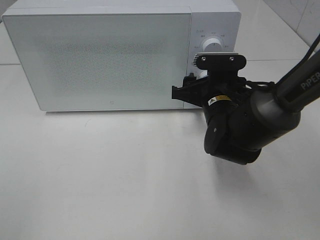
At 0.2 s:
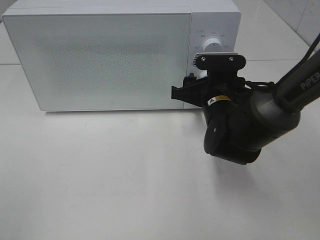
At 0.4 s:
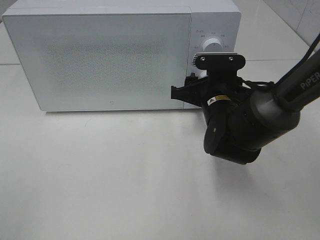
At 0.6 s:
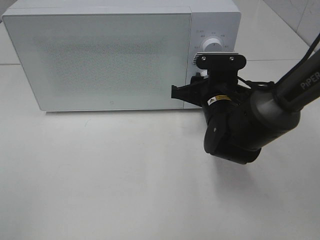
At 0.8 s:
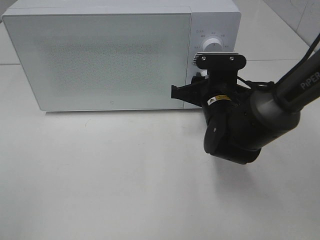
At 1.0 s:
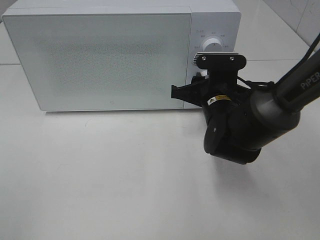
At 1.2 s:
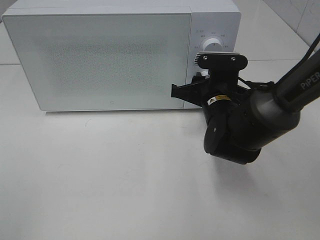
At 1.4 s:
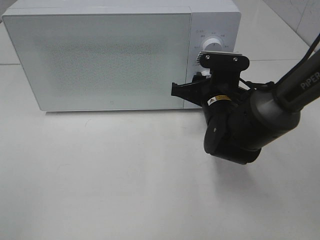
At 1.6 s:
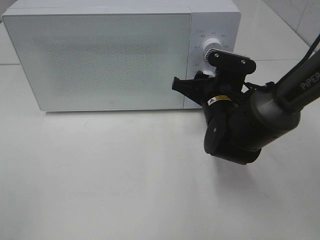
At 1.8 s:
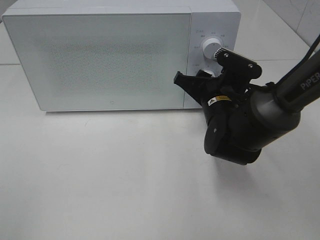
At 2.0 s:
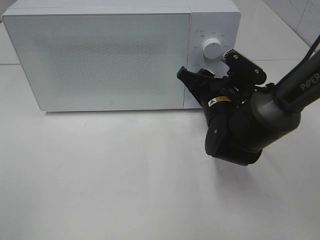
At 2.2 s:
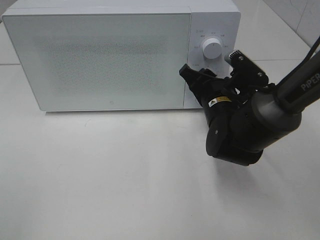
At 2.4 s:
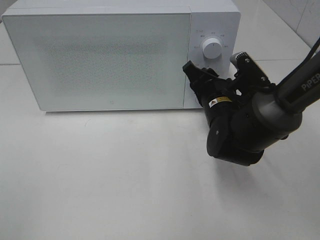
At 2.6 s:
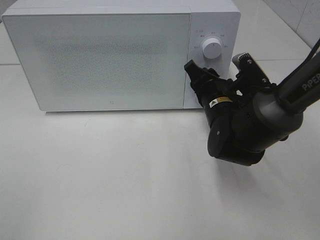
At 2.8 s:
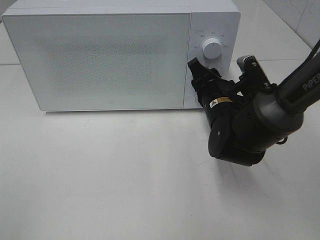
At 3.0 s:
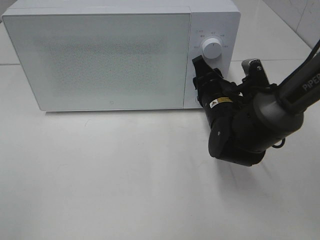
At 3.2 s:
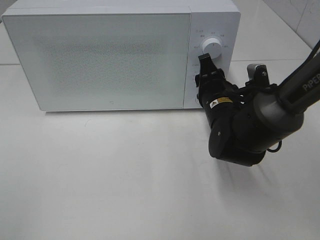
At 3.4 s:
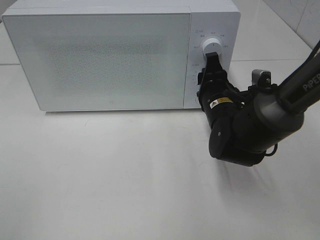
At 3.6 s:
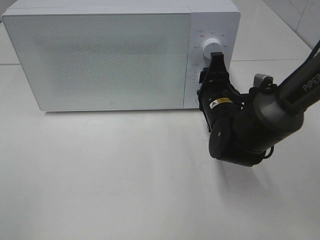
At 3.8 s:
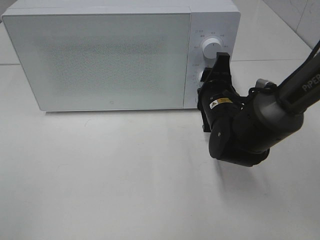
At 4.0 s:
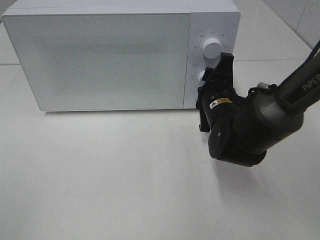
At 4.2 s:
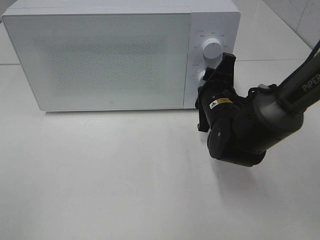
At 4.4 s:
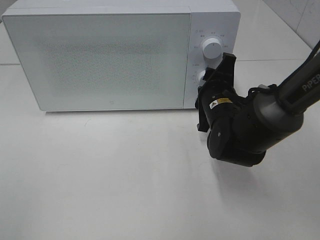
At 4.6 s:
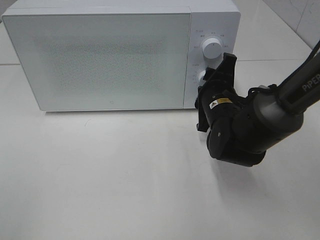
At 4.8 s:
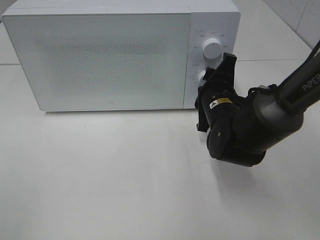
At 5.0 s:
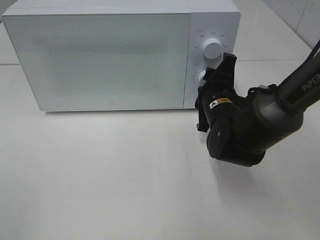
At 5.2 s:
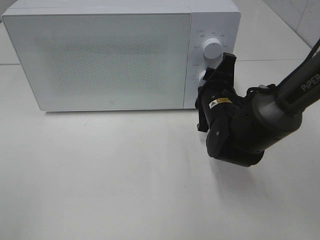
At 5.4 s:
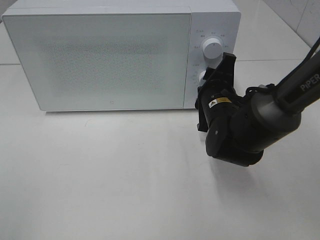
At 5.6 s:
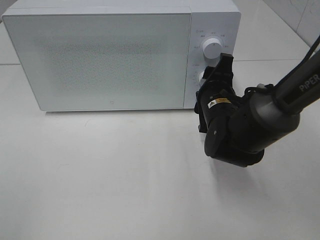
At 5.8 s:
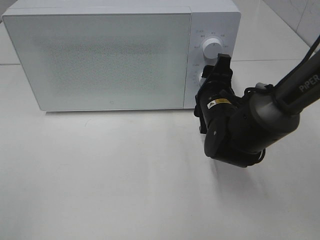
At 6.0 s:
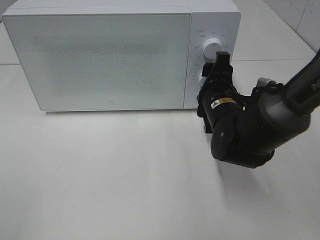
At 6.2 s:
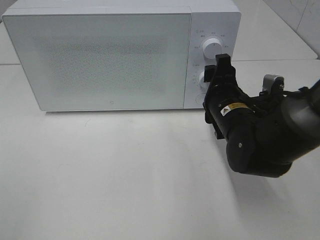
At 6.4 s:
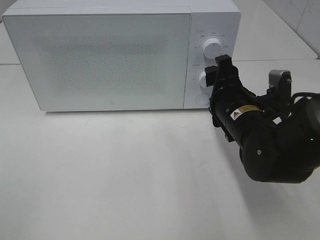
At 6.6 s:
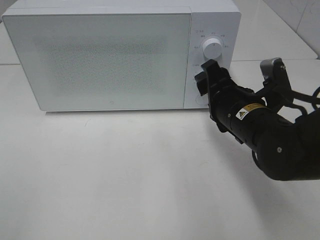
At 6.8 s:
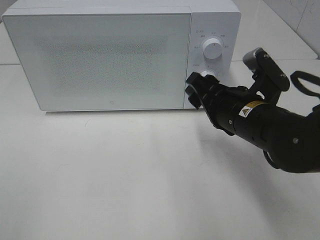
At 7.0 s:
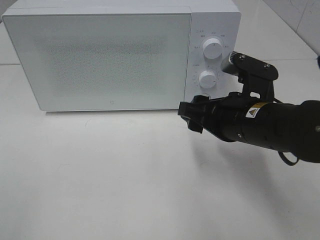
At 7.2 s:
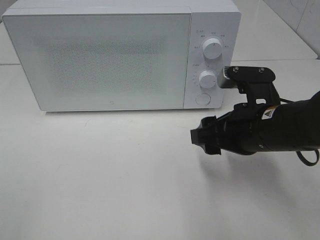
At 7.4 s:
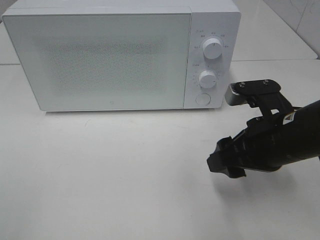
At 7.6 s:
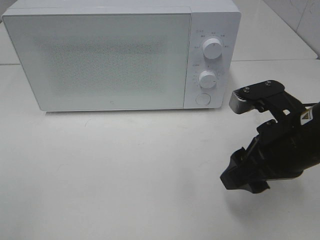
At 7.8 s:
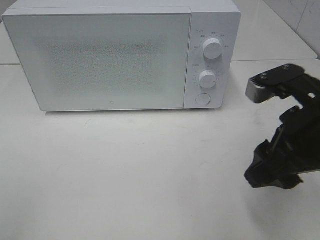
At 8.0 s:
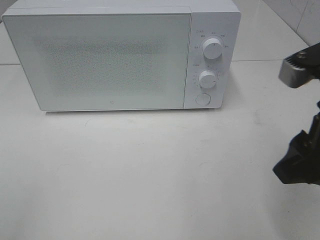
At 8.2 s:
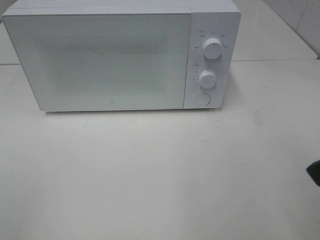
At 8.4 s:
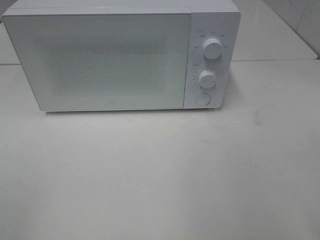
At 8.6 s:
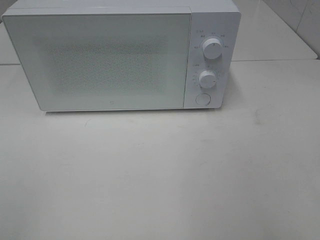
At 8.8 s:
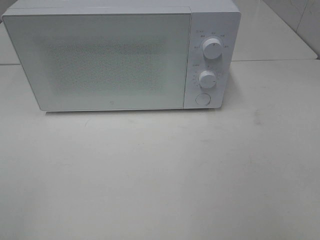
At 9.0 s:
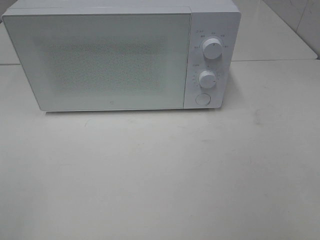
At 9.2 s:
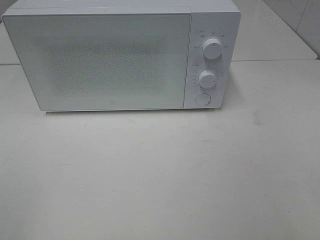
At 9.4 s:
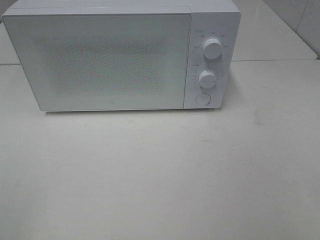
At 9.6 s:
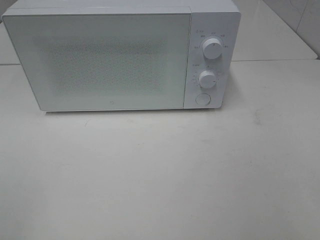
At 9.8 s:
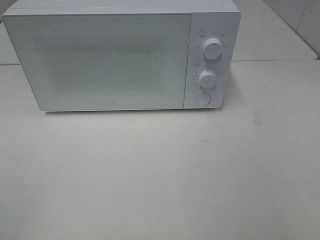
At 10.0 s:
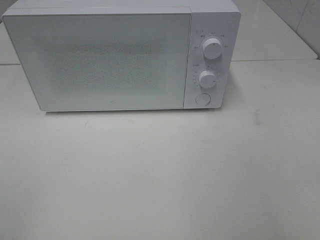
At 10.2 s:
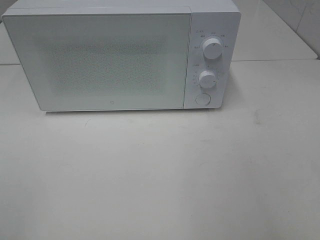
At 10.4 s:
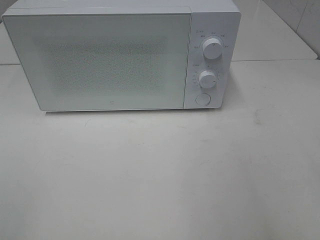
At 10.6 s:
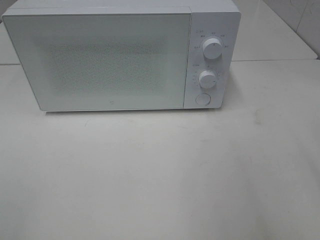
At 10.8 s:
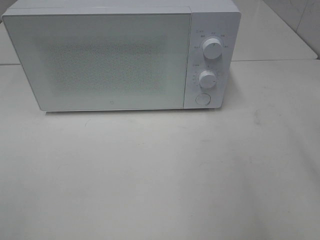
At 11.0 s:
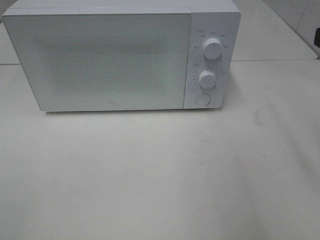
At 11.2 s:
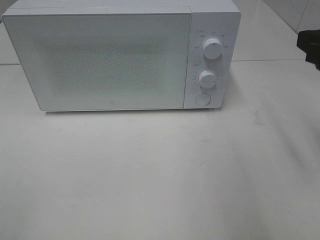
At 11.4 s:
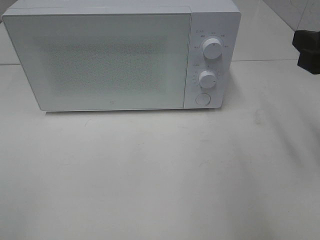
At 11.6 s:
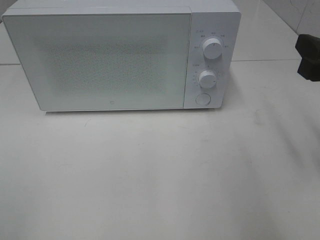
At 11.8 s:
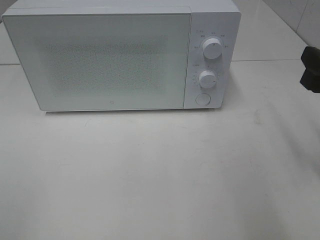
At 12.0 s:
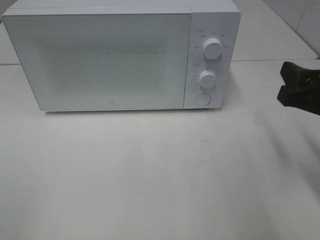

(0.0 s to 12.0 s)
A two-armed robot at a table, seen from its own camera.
Task of the whole recording: Heat the burger.
Step, 0.0 s - 5.8 s: Right hand: twist timer button.
0.0 s - 1.6 s: The grippers stay close to where they were, moving slightly.
4.4 s - 6.0 s: The grippers stay close to where they were, moving slightly.
6.0 s - 7.6 s: The right gripper shifts roughly 15 cm backward, upward and to the right.
7.6 s - 9.0 s: The right gripper goes about 25 cm backward, to the right and upward.
10.4 s - 12.0 s: The right gripper moves forward and downward, approximately 15 cm.

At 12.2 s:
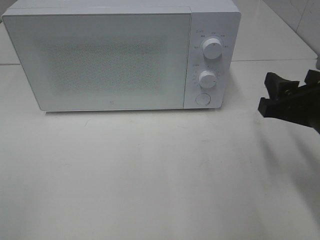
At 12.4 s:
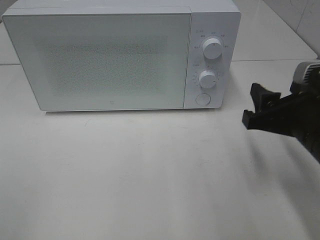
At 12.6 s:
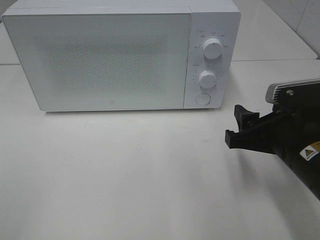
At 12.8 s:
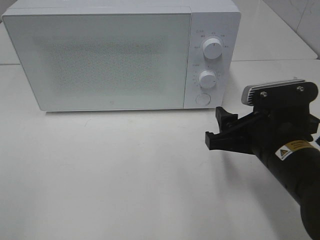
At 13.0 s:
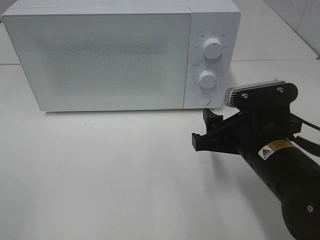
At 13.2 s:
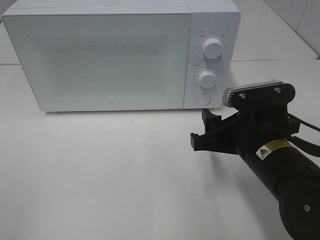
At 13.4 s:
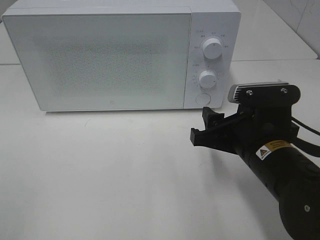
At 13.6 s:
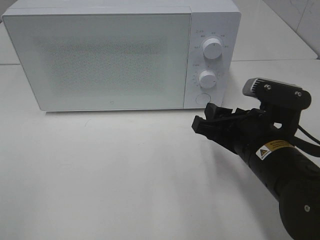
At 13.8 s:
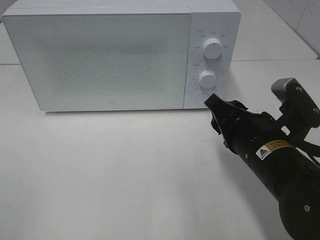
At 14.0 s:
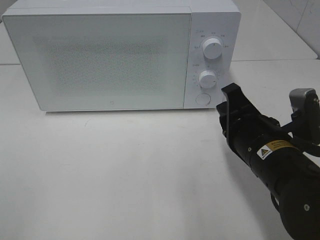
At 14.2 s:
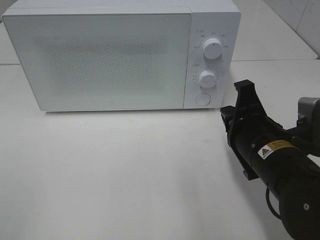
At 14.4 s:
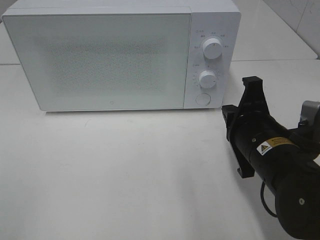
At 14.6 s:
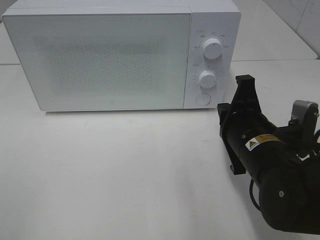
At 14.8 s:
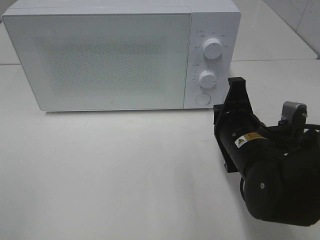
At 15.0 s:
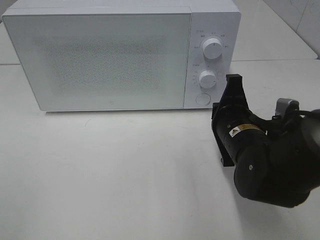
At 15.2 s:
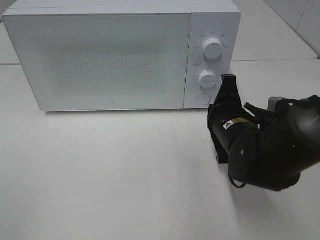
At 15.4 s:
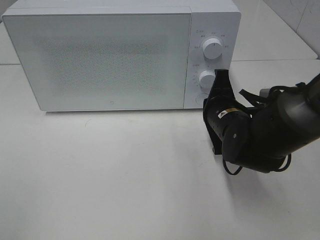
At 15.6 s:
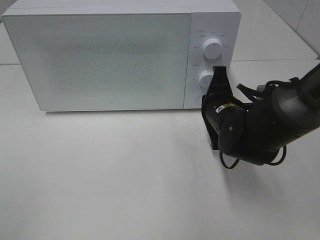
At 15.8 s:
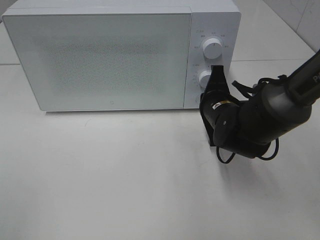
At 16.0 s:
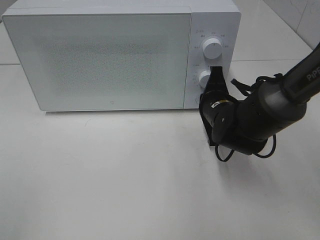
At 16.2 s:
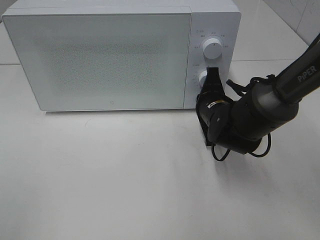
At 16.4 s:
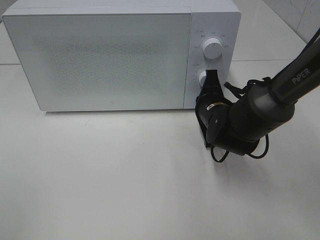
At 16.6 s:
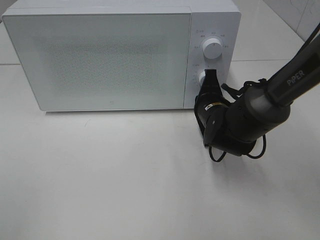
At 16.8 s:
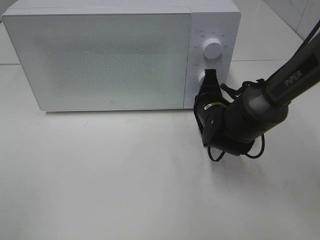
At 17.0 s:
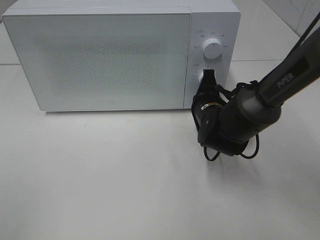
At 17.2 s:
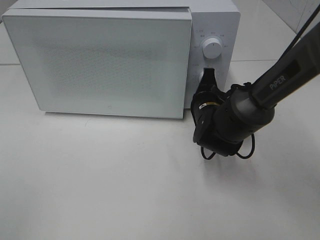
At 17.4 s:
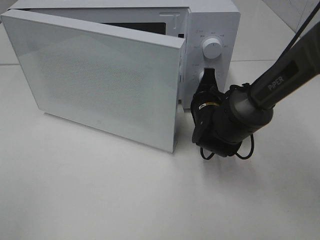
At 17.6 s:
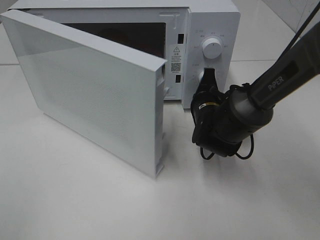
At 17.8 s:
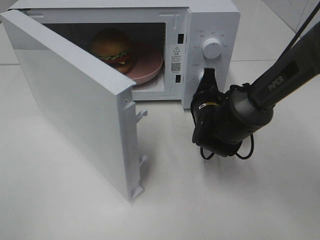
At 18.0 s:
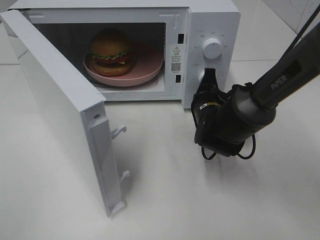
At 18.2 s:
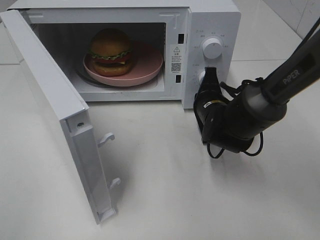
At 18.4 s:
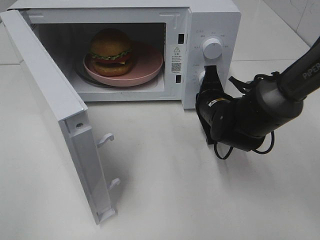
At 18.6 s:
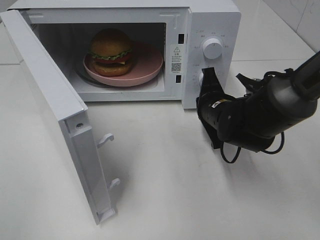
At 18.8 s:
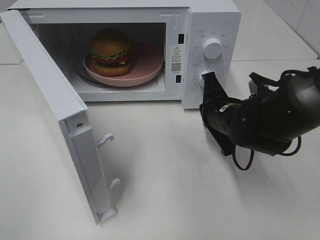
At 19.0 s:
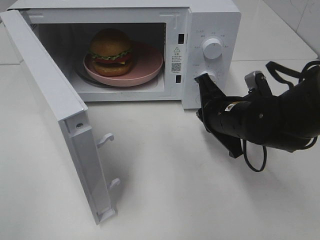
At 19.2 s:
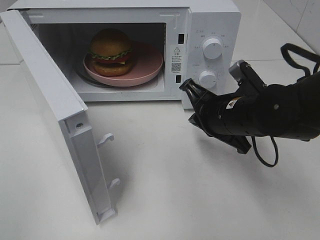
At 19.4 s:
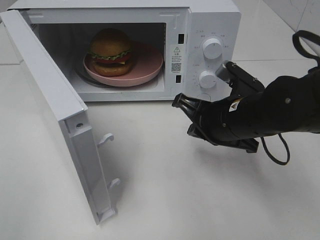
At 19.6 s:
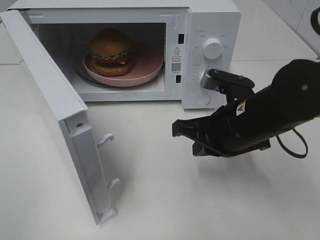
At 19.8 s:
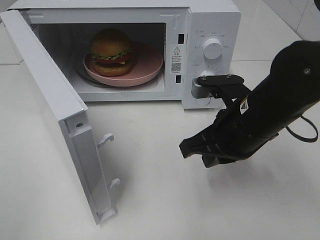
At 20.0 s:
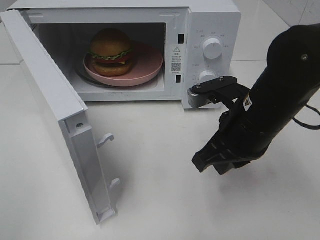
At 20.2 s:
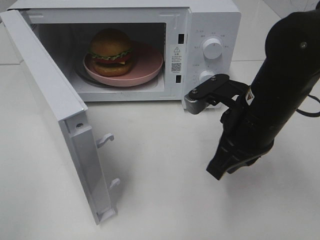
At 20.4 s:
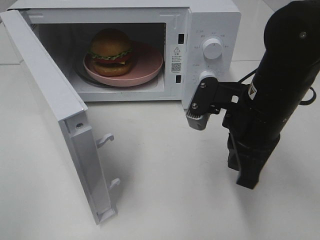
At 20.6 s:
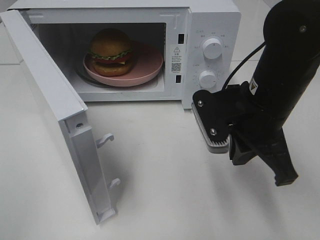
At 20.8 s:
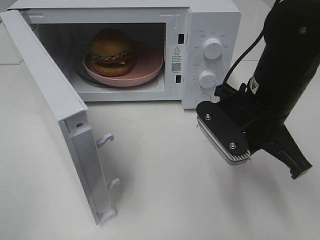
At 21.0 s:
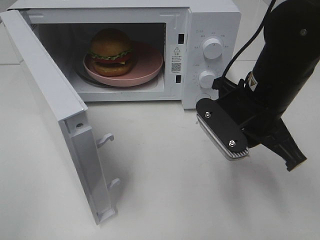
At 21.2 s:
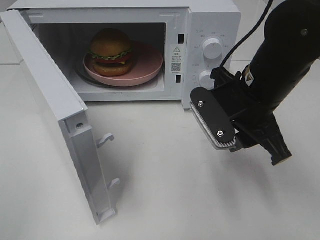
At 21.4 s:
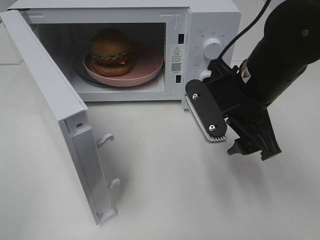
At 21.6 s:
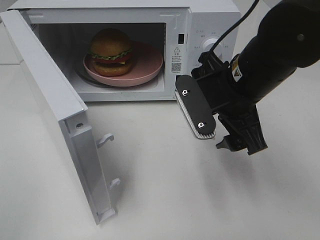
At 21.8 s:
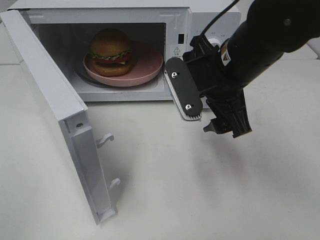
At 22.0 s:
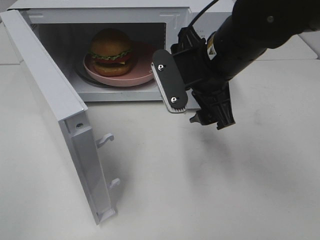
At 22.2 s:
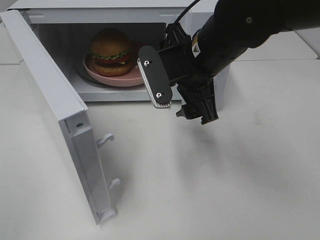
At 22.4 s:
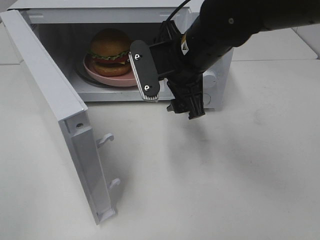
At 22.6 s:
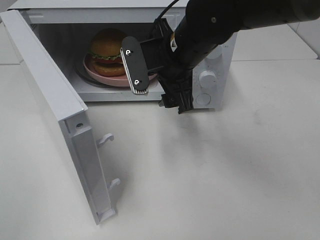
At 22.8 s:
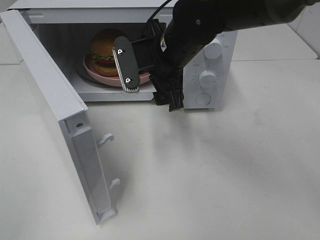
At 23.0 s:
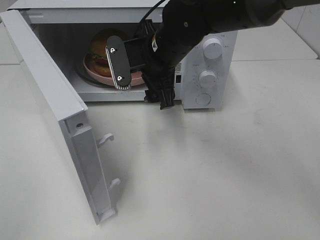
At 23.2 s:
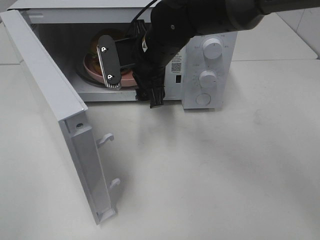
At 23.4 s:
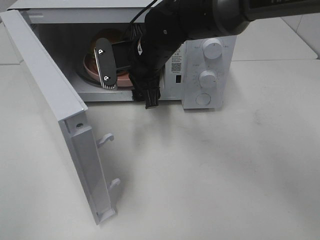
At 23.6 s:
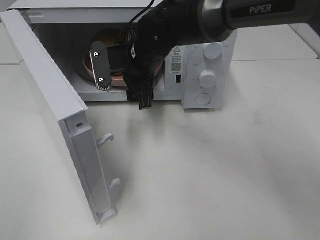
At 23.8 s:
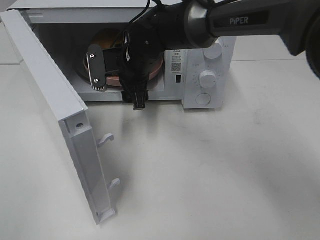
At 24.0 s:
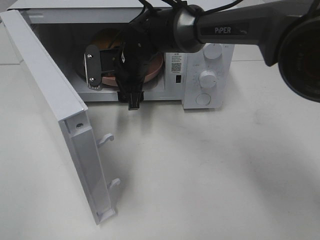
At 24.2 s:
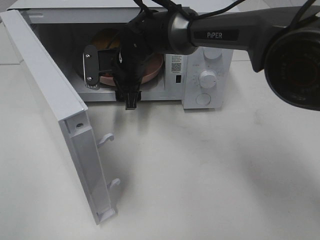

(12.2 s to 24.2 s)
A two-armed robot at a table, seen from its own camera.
Task of the whole recording: Heat the burger.
Step, 12.2 s - 18.8 s: Right hand: press the switch.
12.2 s - 13.8 s: The right gripper heads to the left, covering some 10 cm.
13.8 s - 15.2 s: The right gripper travels forward by approximately 5 cm, and closes.
15.2 s - 16.6 s: The right gripper moves forward, approximately 5 cm.
18.2 s - 19.8 s: The right gripper is displaced backward and upward by about 15 cm.
19.8 s - 21.2 s: The right gripper opens.
21.2 s - 22.6 s: The right gripper moves to the left and forward, approximately 10 cm, and opens.
22.6 s - 24.2 s: The right gripper shifts roughly 15 cm forward, to the left and downward.
